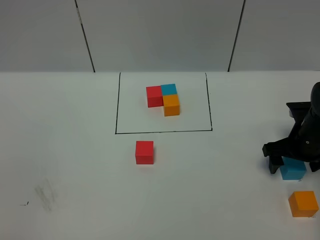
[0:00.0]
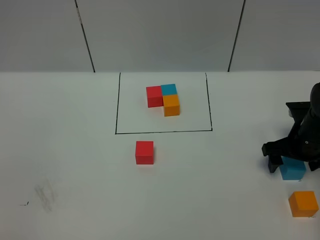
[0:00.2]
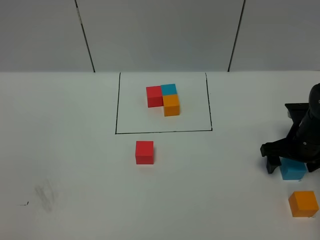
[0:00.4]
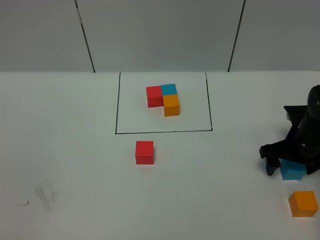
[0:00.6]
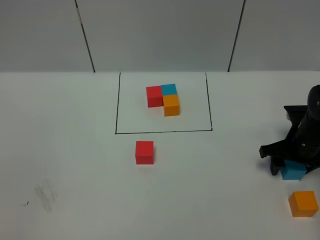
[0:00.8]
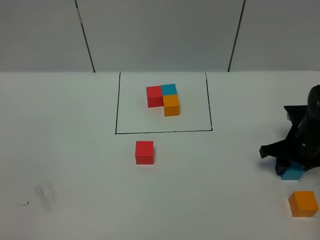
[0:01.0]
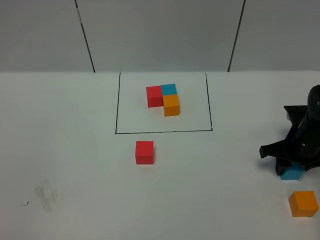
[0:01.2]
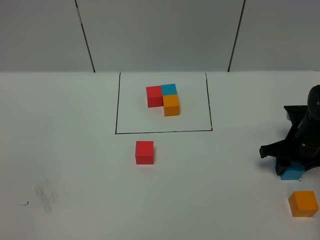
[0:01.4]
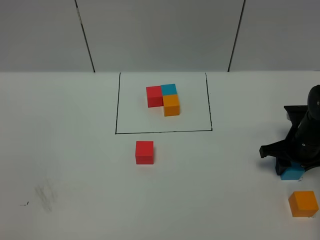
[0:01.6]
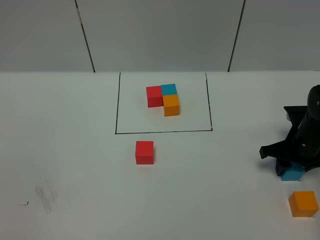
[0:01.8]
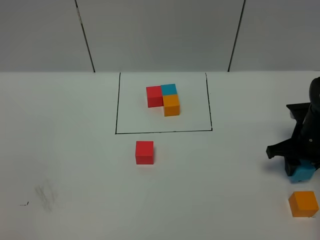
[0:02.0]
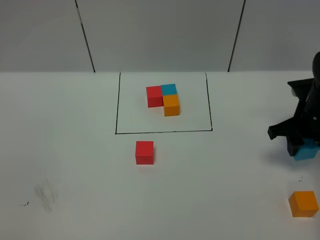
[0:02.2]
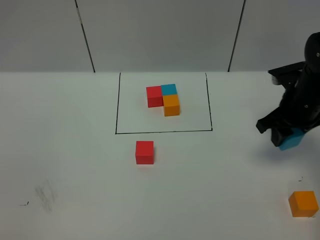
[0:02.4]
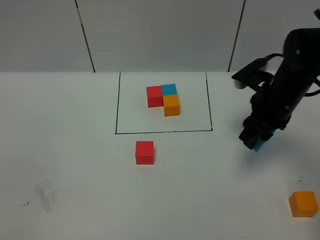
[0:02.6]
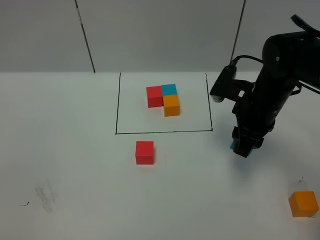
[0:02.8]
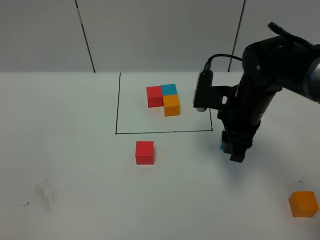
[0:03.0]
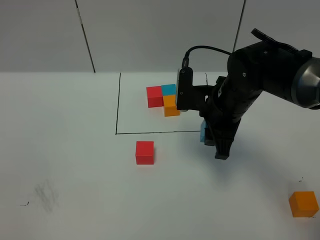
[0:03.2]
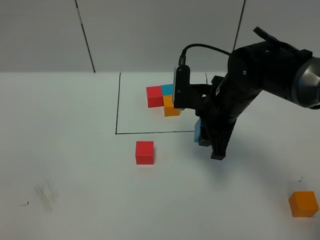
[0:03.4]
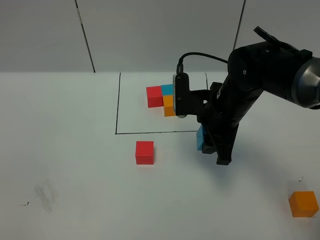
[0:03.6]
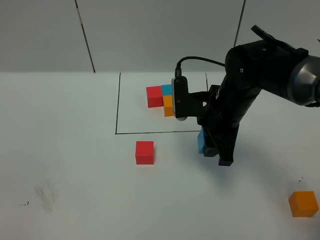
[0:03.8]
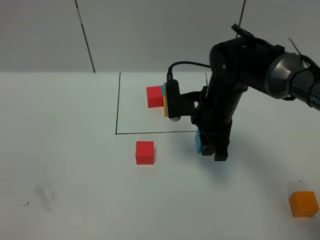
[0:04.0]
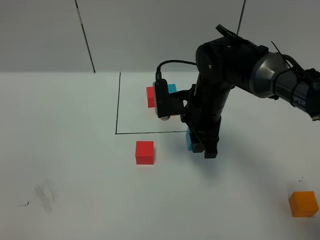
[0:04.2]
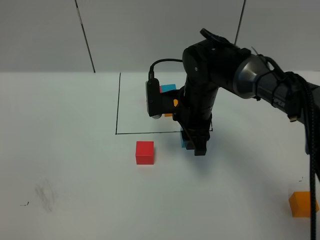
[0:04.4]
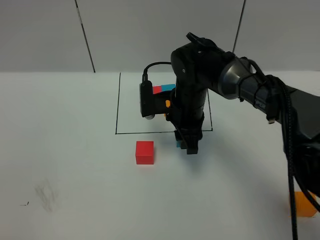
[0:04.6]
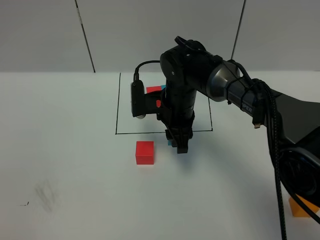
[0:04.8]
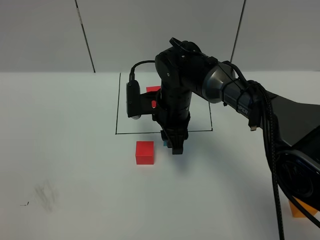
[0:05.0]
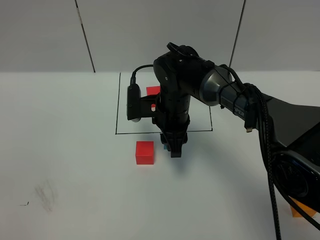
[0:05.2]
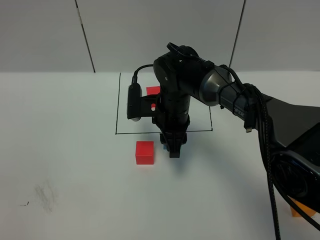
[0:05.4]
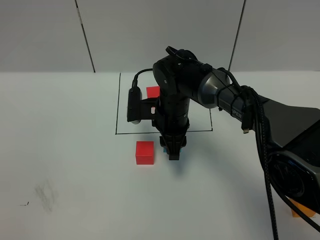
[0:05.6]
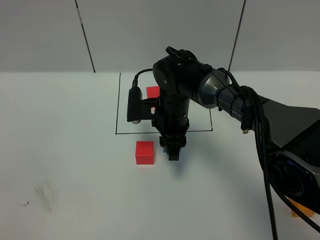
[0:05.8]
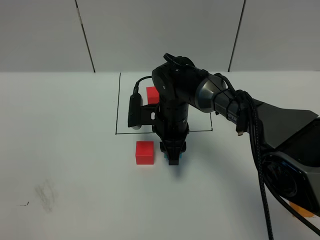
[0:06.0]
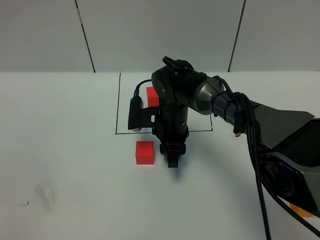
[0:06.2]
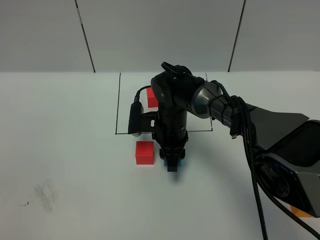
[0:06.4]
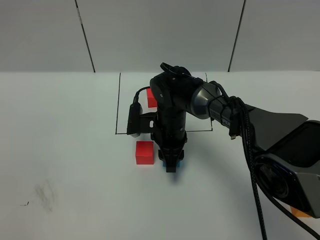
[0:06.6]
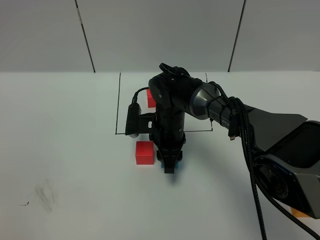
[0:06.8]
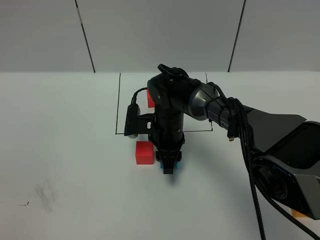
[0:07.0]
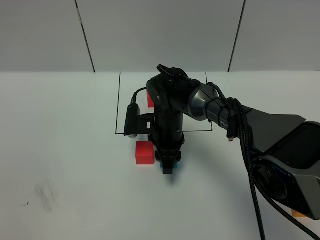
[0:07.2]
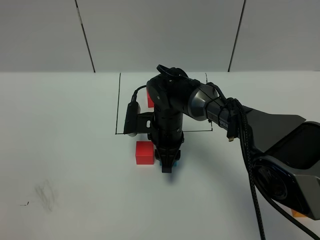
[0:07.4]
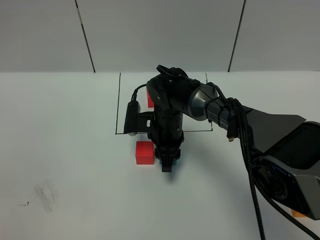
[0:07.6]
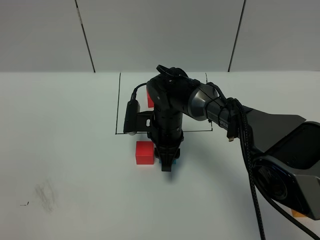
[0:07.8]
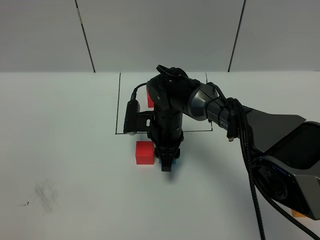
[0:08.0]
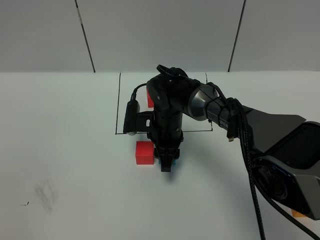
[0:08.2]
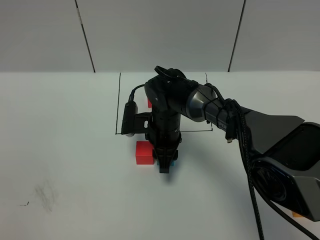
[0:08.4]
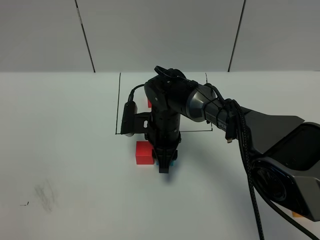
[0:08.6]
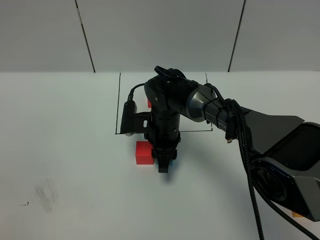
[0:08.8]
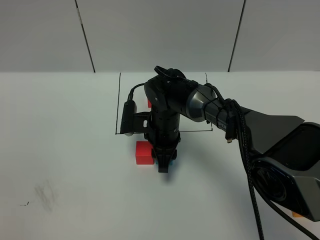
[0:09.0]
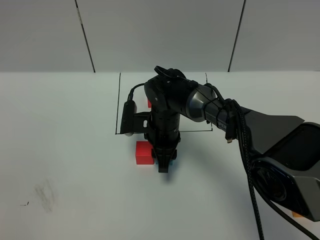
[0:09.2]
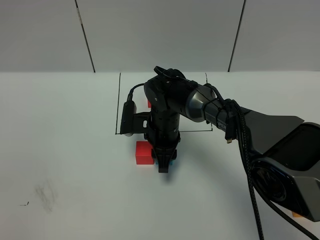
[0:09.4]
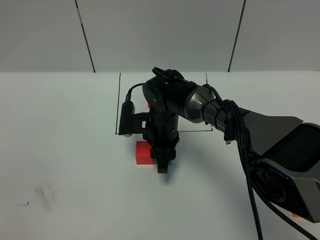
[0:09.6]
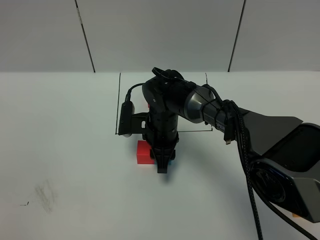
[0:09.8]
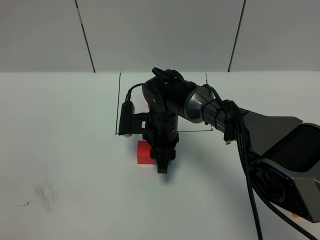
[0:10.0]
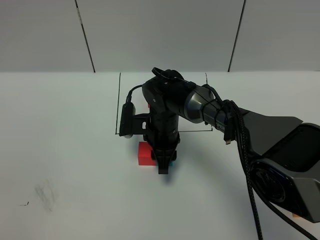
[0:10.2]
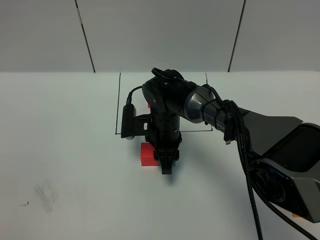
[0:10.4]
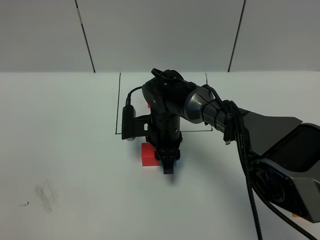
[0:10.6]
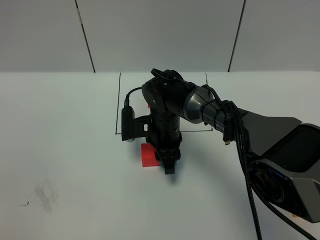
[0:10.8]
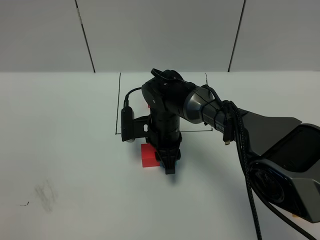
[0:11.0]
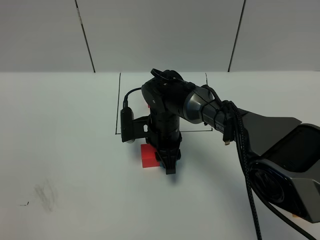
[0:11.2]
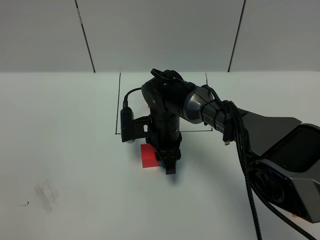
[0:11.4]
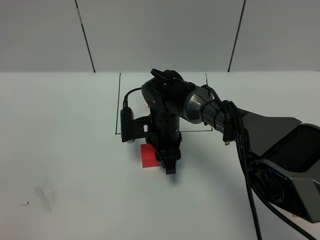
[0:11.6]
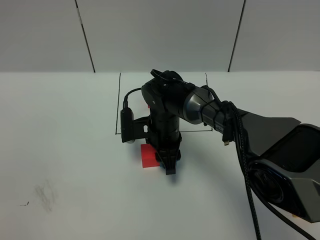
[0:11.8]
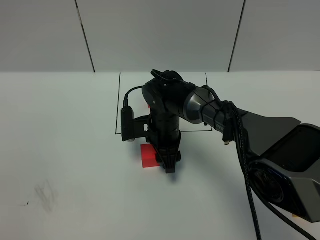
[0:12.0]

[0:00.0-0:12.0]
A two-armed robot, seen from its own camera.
Task of the whole recording: According to the building block template in front, assemble the scattered blocks together.
0:00.0 to 0:01.6: The right gripper closes its fingers.
0:01.6 to 0:03.0: The right gripper is displaced to the left and upward by approximately 20 cm.
0:03.0 to 0:04.4: The right gripper goes approximately 10 cm to the left.
0:04.4 to 0:06.0: The right gripper is displaced downward by approximately 5 cm.
0:06.0 to 0:07.6: The grippers make only small movements.
0:07.6 to 0:10.4: Both grippers stay about where they are.
0:10.4 to 0:12.0: The grippers make only small movements.

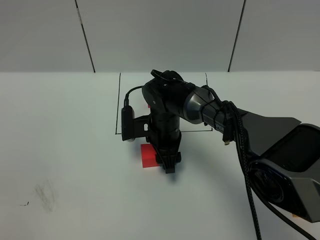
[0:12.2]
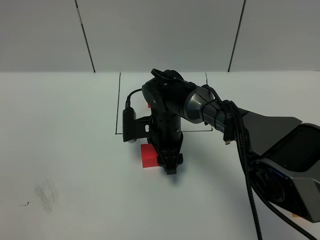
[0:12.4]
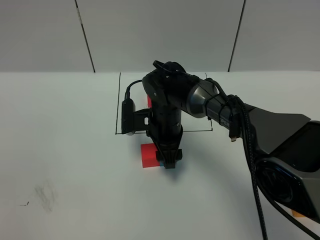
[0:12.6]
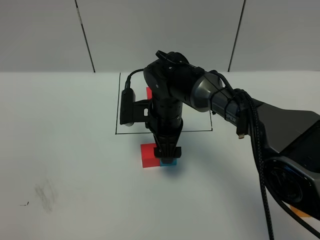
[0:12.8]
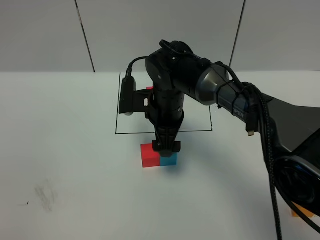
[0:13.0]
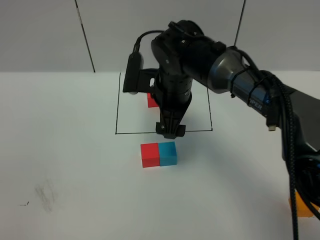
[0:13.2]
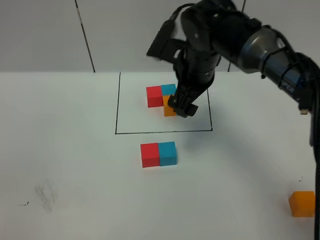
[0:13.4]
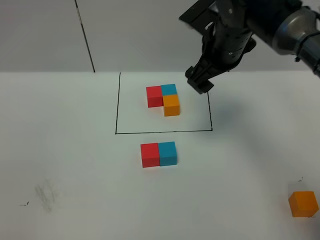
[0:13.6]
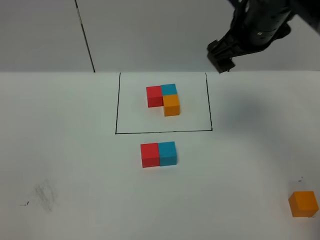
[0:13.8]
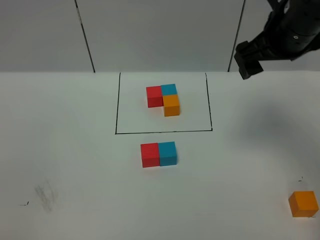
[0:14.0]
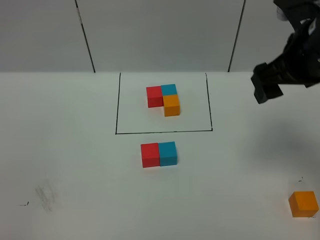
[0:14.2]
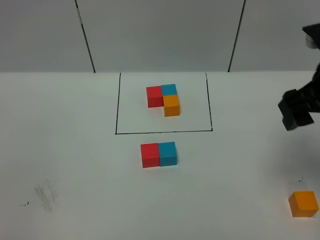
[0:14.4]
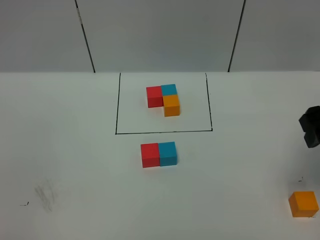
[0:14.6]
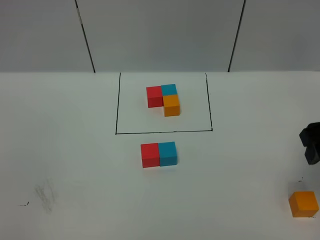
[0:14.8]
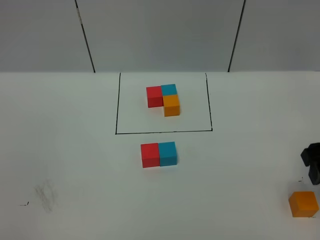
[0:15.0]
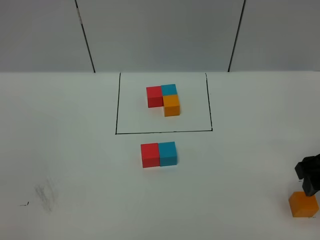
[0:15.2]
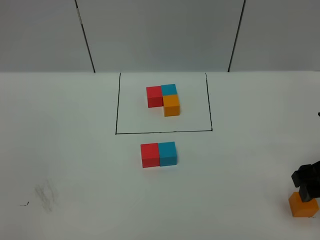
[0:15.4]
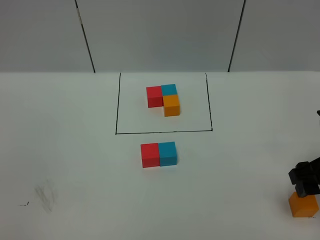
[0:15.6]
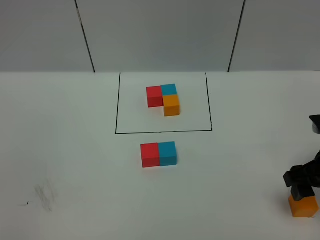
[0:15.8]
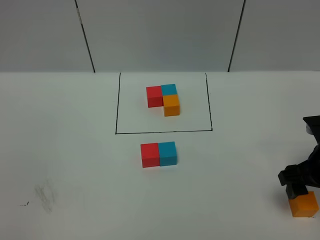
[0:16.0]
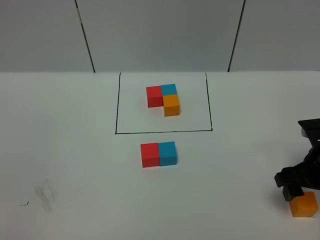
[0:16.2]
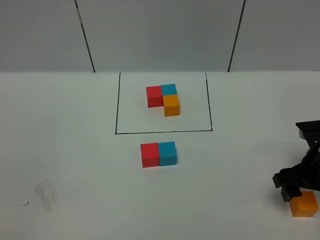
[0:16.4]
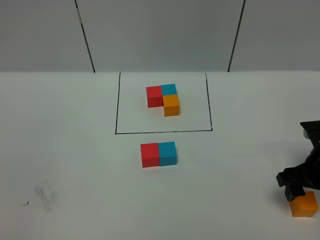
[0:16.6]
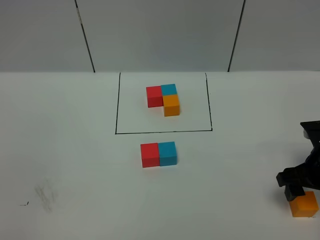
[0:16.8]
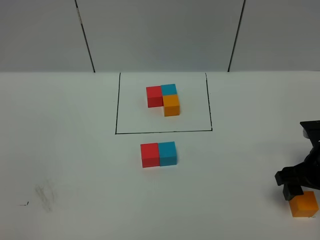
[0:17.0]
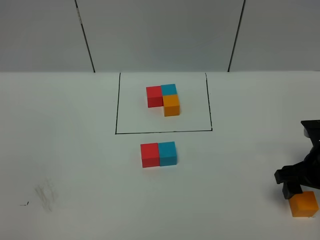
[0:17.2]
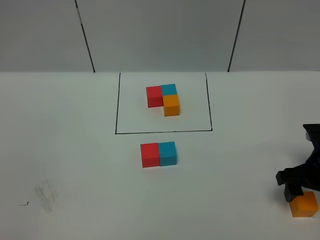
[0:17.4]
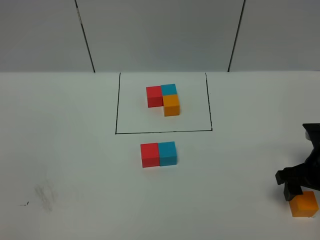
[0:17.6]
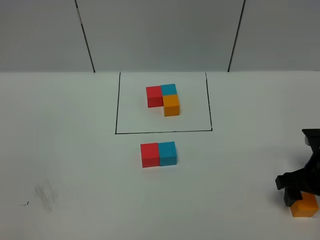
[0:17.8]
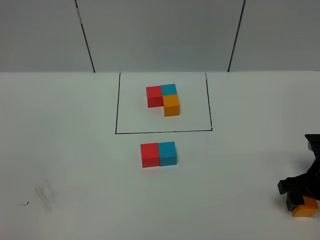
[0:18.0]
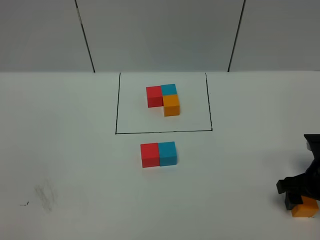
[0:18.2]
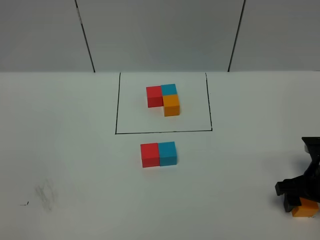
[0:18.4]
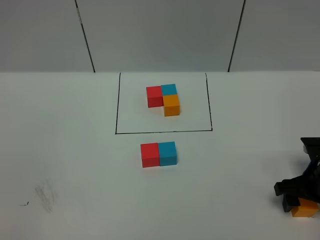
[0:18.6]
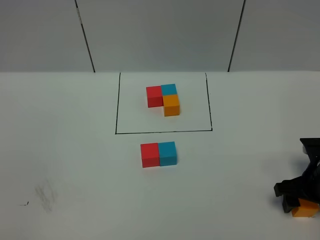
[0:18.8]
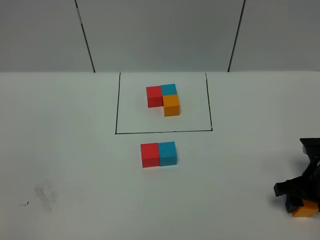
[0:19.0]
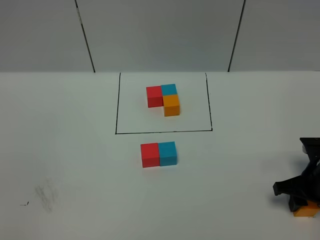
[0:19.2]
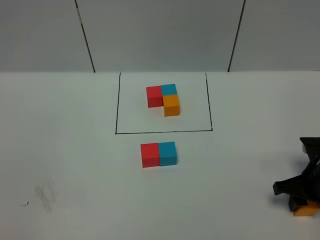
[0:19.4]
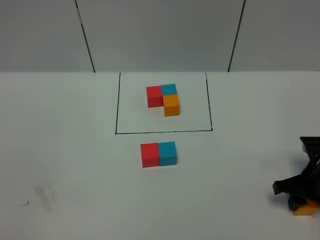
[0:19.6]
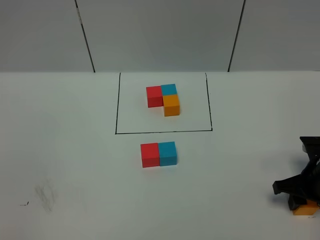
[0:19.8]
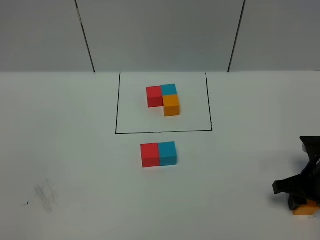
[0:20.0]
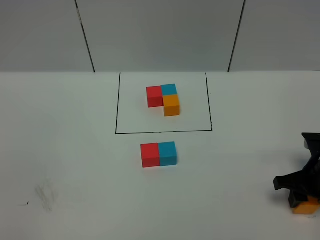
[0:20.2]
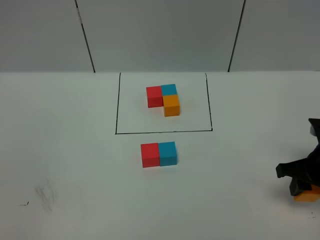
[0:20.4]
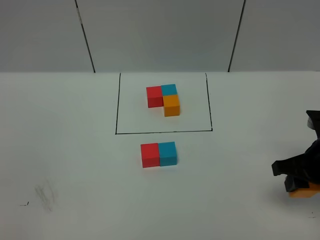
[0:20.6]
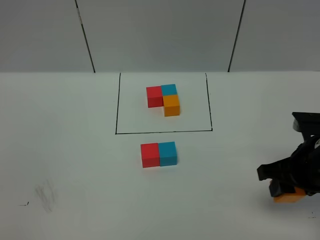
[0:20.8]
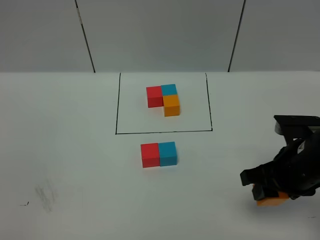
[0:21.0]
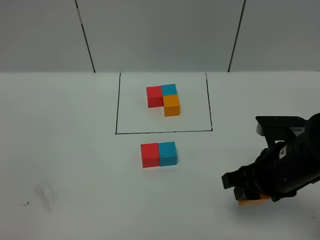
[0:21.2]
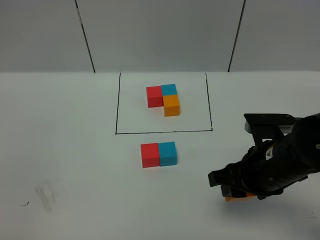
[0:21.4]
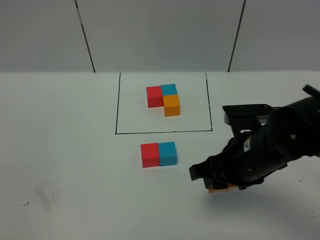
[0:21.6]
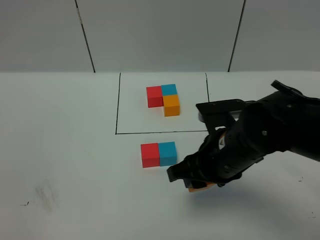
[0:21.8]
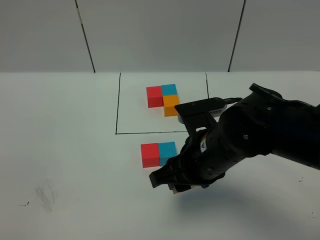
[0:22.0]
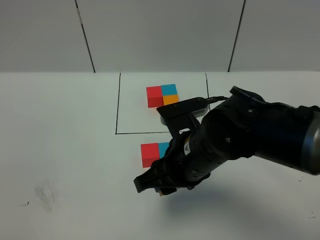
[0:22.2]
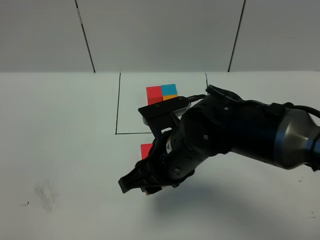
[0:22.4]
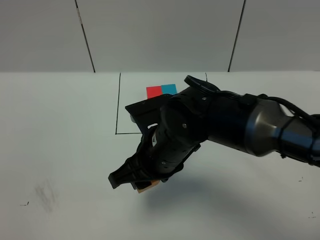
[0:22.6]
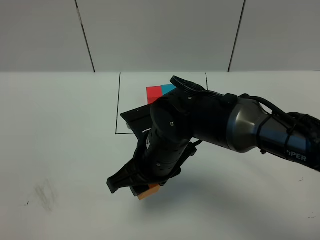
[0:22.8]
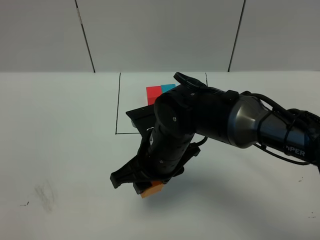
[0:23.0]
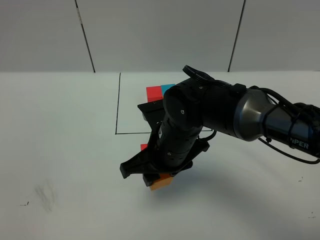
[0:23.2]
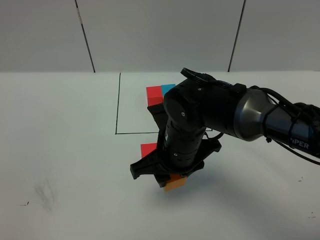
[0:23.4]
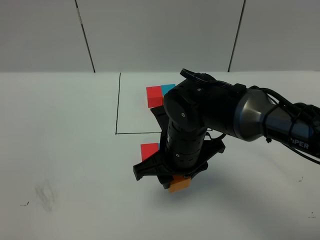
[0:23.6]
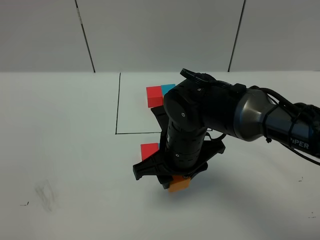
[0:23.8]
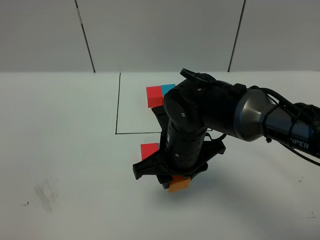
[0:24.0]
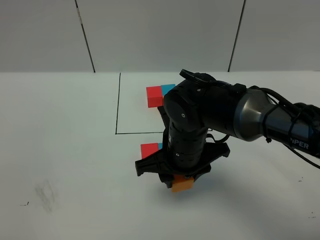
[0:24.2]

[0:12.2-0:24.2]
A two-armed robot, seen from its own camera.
Task of the whole recording: According to the building block template in front, assemble the scattered blocks together.
0:12.2 to 0:13.8: The right gripper shifts about 30 cm upward and to the right, and opens its fingers.
0:13.8 to 0:15.2: The right gripper moves backward, to the right and downward, approximately 25 cm.
0:15.2 to 0:16.6: The right gripper goes approximately 10 cm downward.
0:16.6 to 0:18.2: The grippers move only a little.
0:18.2 to 0:19.8: The right gripper closes.
0:19.8 to 0:21.2: The right gripper travels to the left and upward by roughly 15 cm.
0:21.2 to 0:22.6: The right gripper goes some 20 cm to the left.
